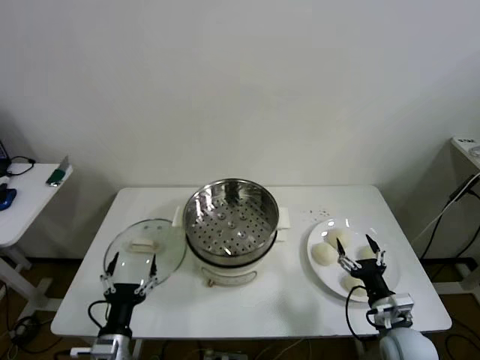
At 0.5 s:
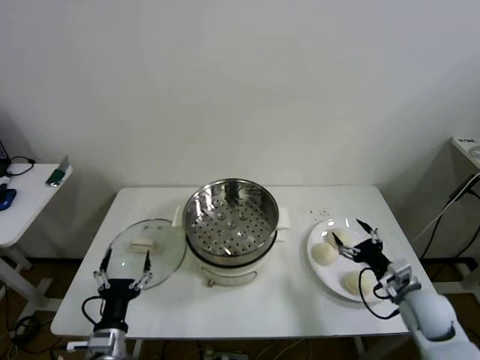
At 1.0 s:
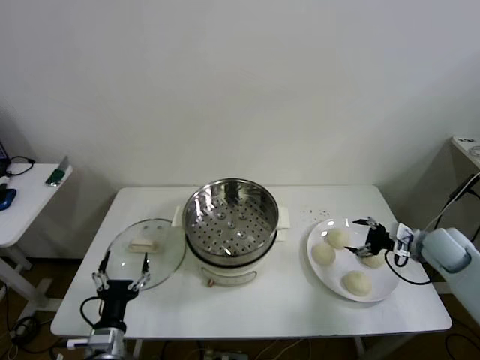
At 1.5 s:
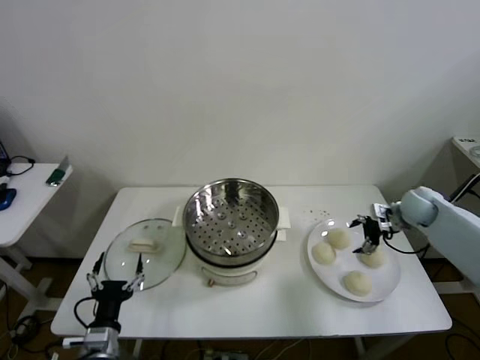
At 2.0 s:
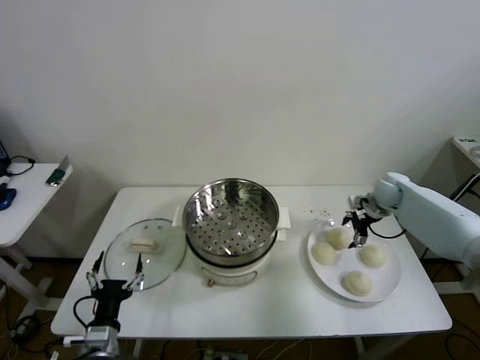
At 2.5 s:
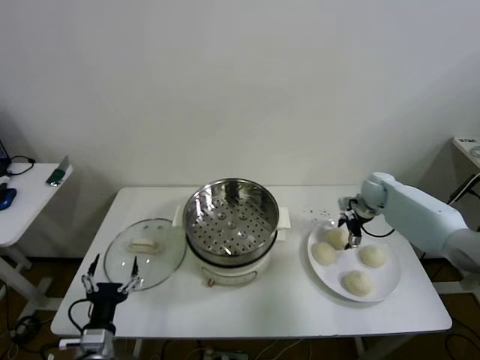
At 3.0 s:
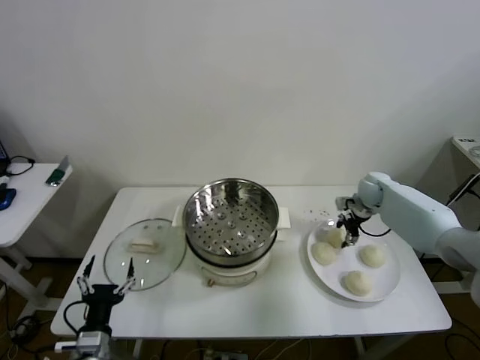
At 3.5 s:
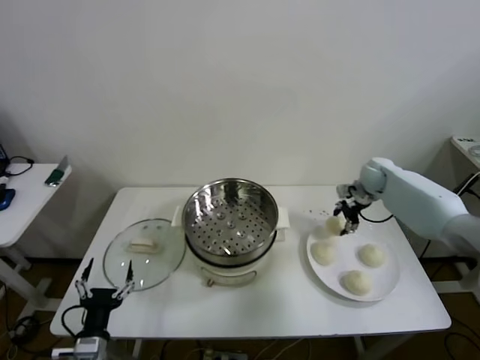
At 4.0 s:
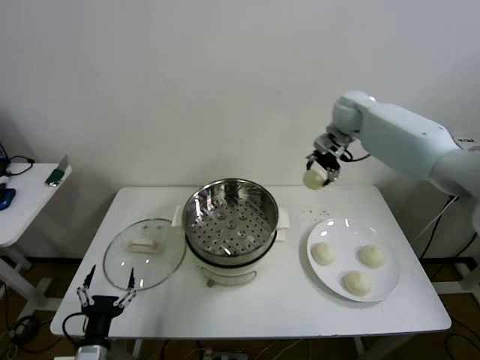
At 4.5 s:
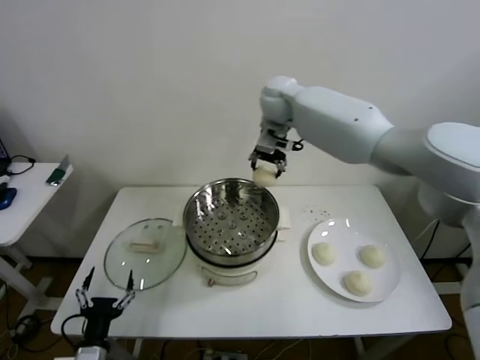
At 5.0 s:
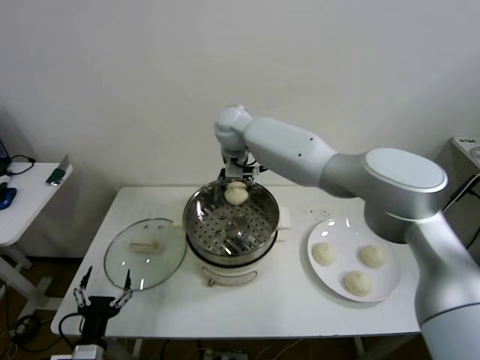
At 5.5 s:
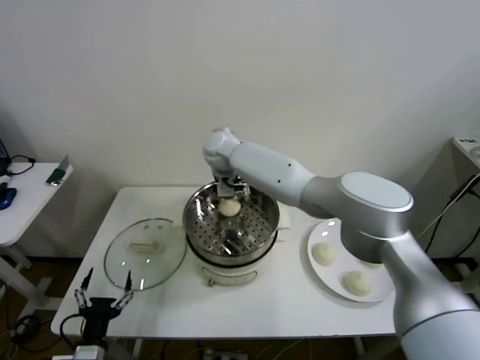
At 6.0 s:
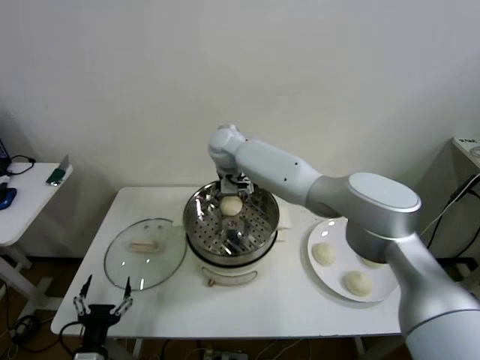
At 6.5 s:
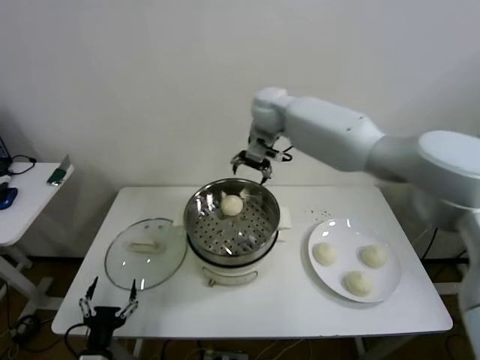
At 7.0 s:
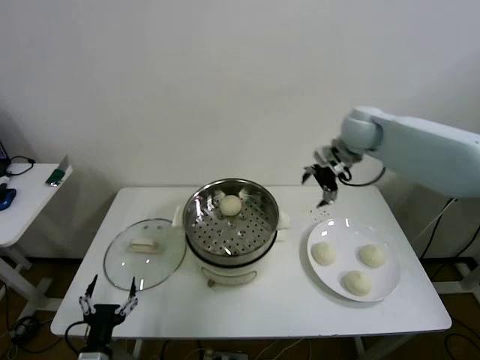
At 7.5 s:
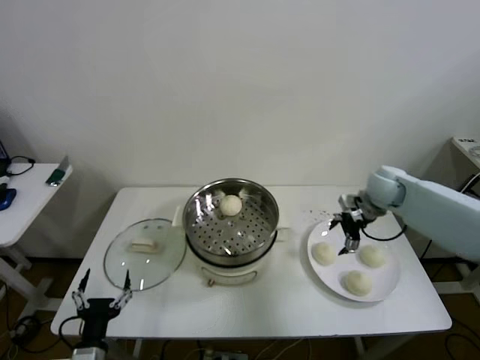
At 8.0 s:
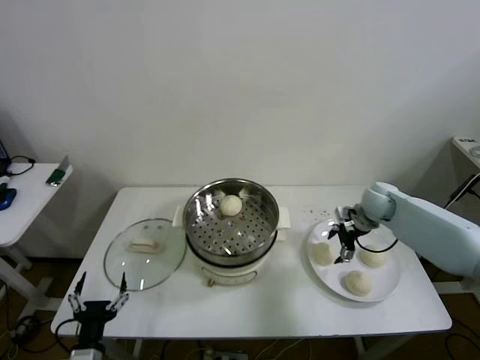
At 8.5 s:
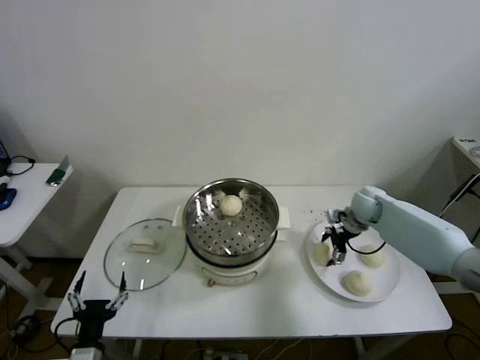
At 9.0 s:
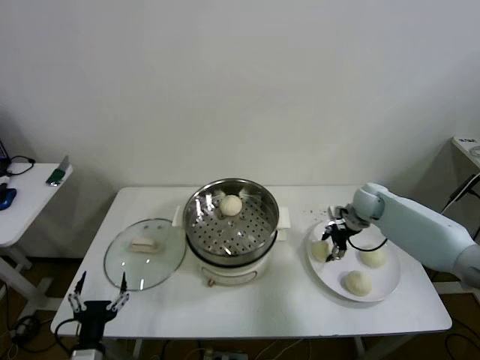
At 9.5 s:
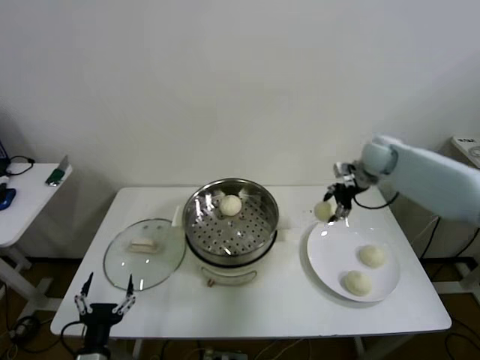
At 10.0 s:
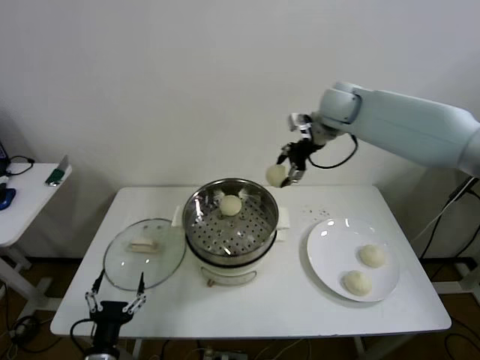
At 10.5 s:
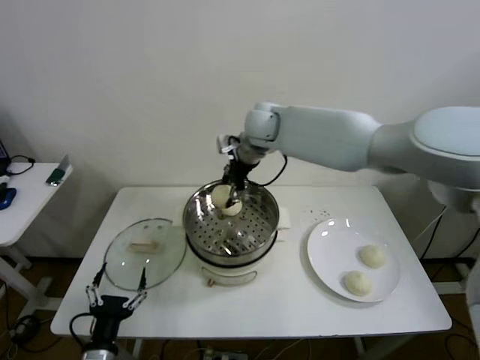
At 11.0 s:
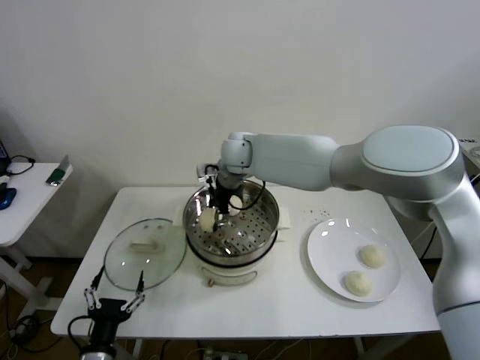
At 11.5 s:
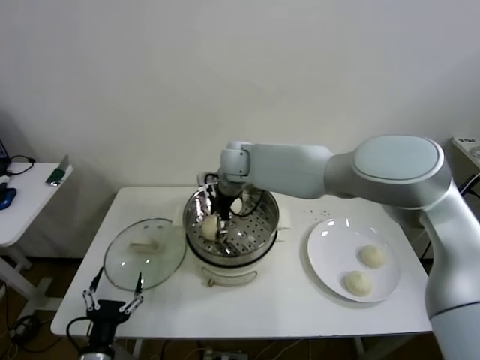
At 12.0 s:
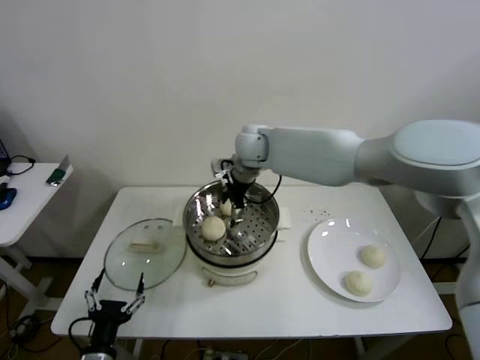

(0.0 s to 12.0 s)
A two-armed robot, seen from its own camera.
Step, 0.0 s - 3.0 s: Grasp the baozi in the plate with right gripper.
Step, 3.5 s - 6.0 s: Place the baozi on the steamer with right gripper.
Step, 6.5 s - 8.5 s: Grasp the baozi in the plate with right gripper.
Step, 9.0 s - 11.5 s: Place the baozi on the steamer with right gripper.
2.0 s - 4.0 s: The right gripper moves upward and to the left, approximately 30 cm, and closes up.
4.0 s - 6.0 s: The right gripper moves to the left, some 25 cm, and opens.
6.0 s - 8.0 s: The right gripper goes about 40 cm to the right.
8.0 s - 10.0 s: The right gripper heads upward and to the left, covering roughly 30 cm, and closes its fingers.
10.0 s - 12.0 s: The right gripper is displaced to the left and downward by some 15 cm, and opens.

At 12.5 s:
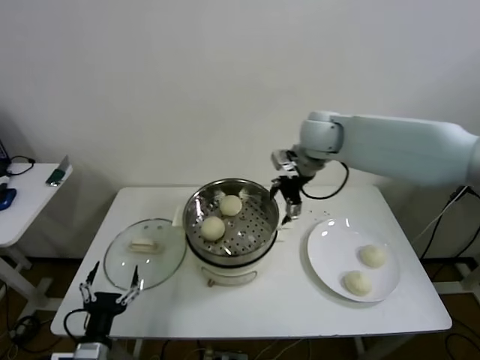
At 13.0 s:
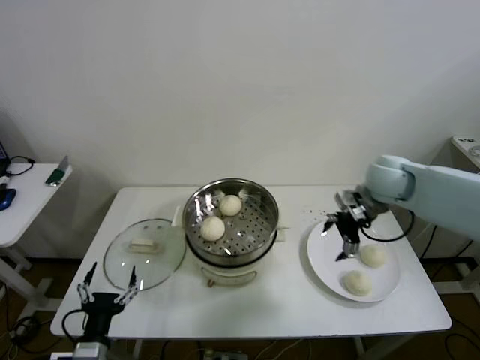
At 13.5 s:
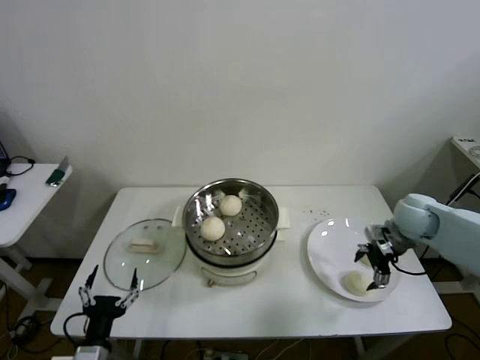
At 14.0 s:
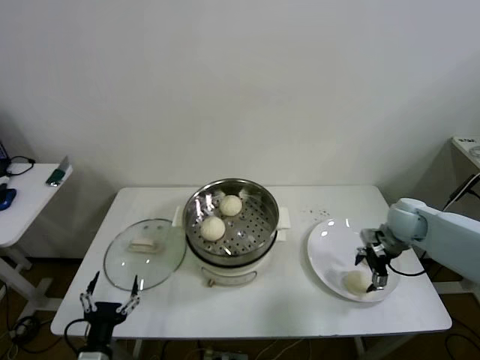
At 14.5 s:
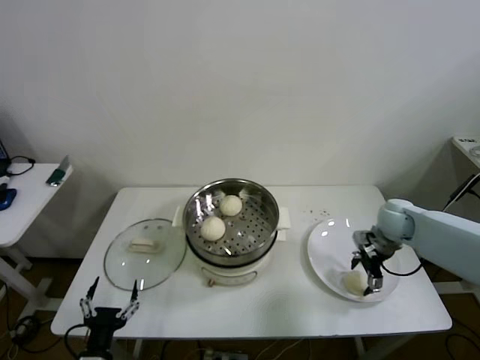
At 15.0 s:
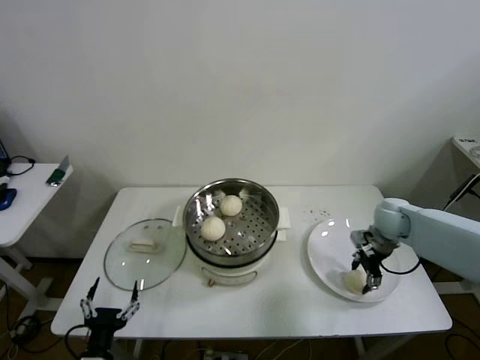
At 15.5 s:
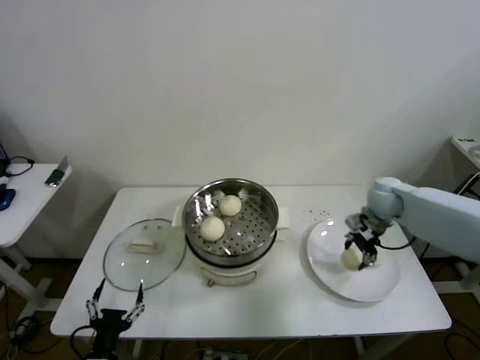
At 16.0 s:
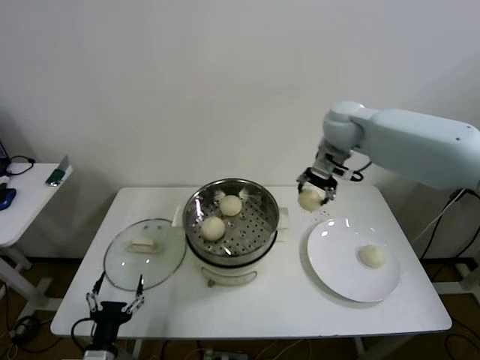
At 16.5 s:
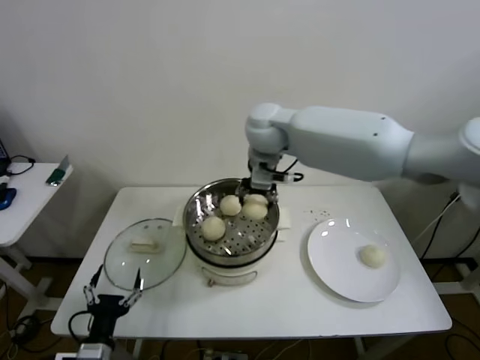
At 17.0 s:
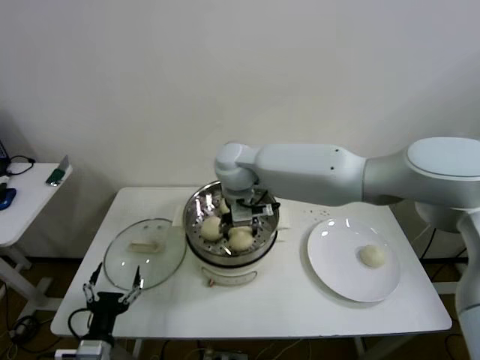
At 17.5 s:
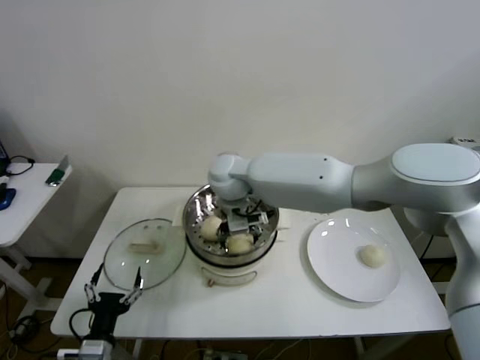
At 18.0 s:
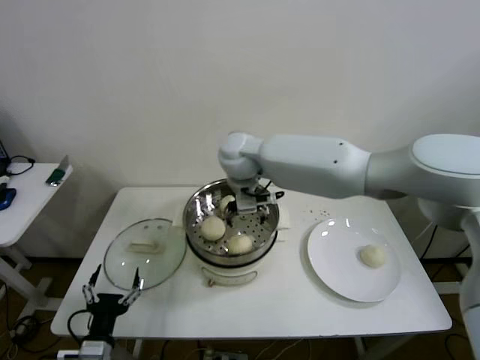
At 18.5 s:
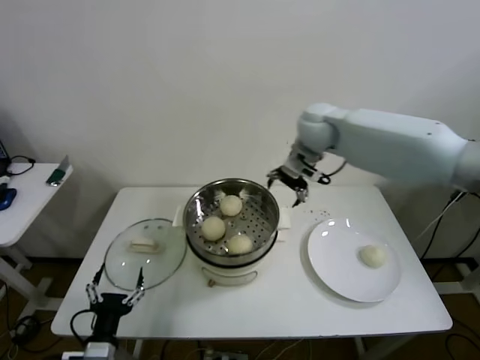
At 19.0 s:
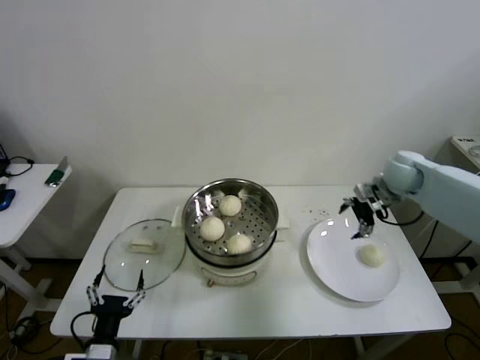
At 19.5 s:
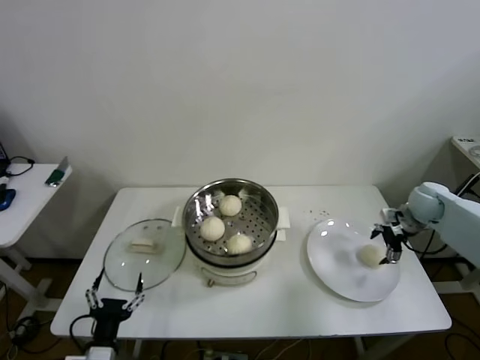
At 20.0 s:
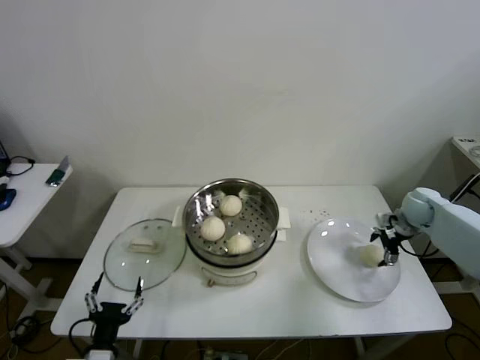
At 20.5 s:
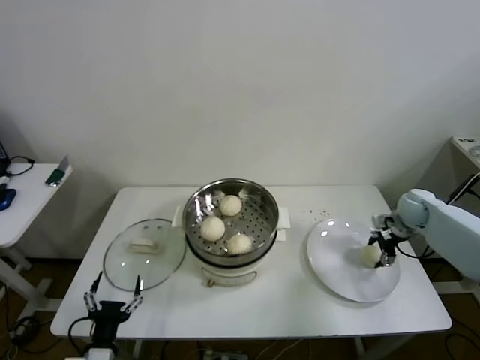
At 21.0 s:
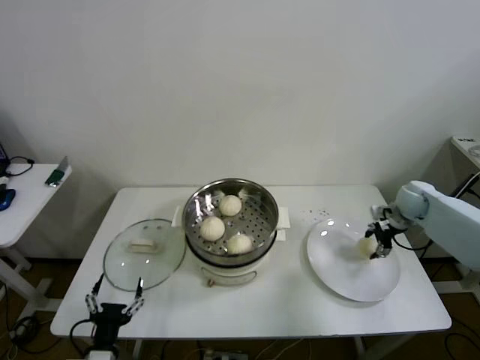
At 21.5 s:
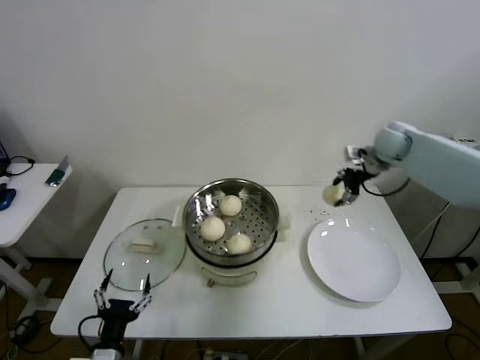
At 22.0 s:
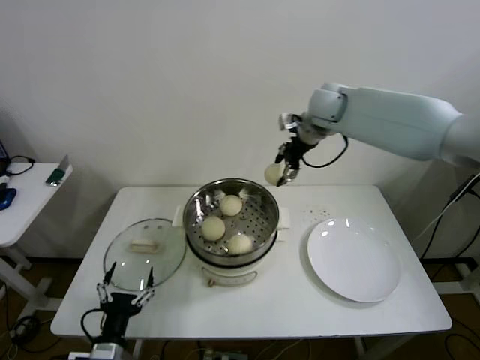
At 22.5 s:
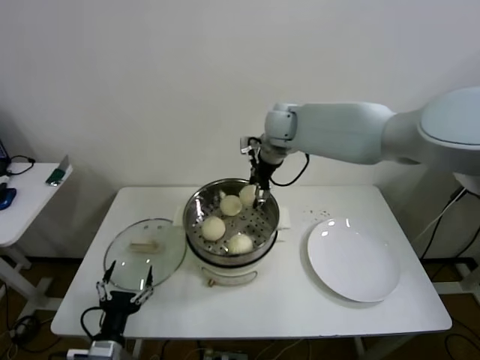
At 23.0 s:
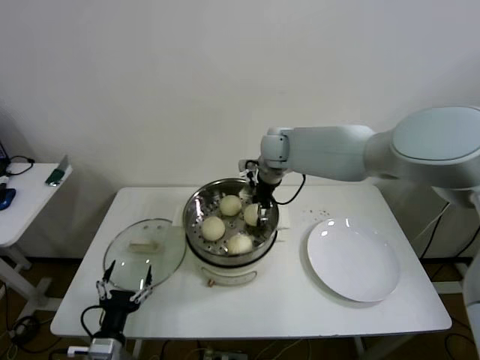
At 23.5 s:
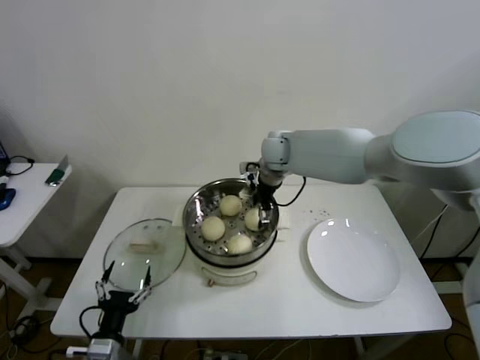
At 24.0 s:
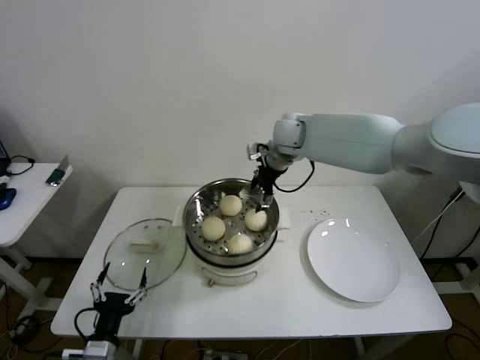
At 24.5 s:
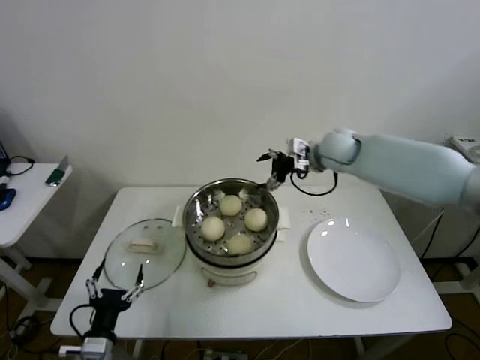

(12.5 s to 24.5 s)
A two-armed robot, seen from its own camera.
Step, 12.5 s - 15.0 s: Grasp the baozi in the plate with right gripper.
Step, 15.5 s - 17.5 s: Place the baozi on the steamer with right gripper.
Step, 18.0 s - 20.5 s: Grasp the baozi in the plate with right gripper.
Step, 21.0 s - 24.0 s: Place the baozi on the steamer with right gripper.
12.5 s - 14.5 s: The right gripper heads downward and to the right, covering roughly 30 cm.
14.5 s - 16.5 s: The right gripper heads to the left and upward, covering some 40 cm, and closes up.
16.5 s - 18.5 s: The right gripper is displaced to the right by approximately 15 cm, and opens its fingers.
18.5 s - 20.5 s: The right gripper shifts approximately 35 cm to the right and downward, and closes its fingers.
20.5 s - 22.5 s: The right gripper is displaced to the left and upward by approximately 40 cm.
22.5 s - 24.5 s: The right gripper shifts about 15 cm to the right, and opens its fingers.

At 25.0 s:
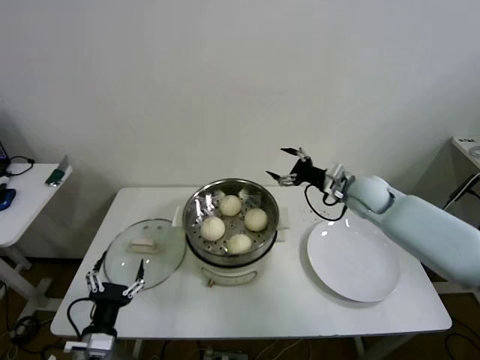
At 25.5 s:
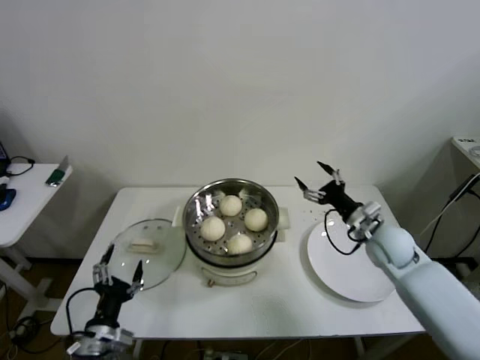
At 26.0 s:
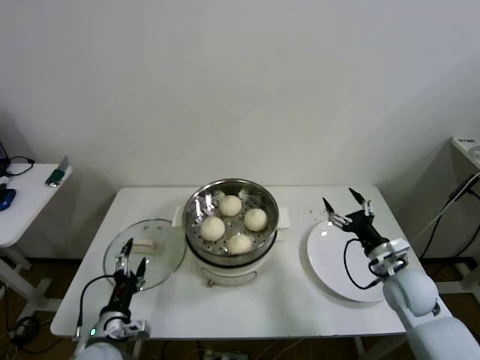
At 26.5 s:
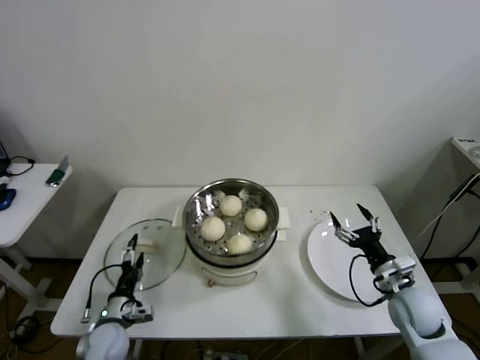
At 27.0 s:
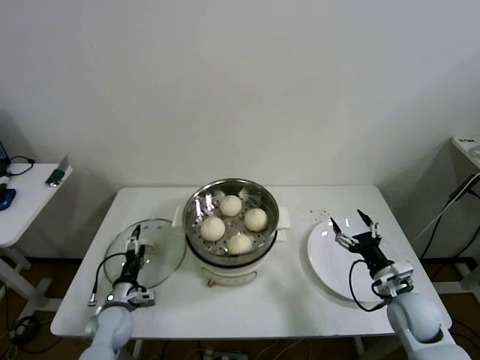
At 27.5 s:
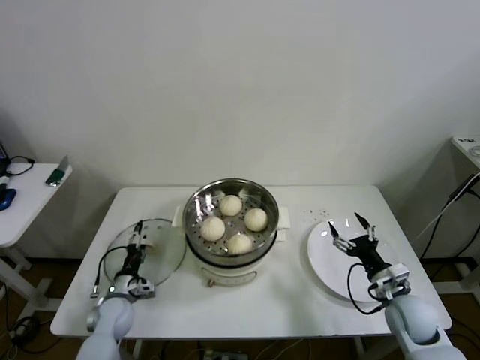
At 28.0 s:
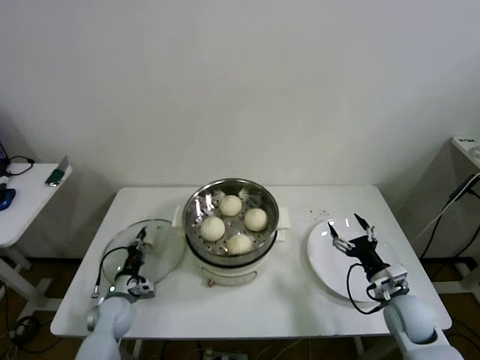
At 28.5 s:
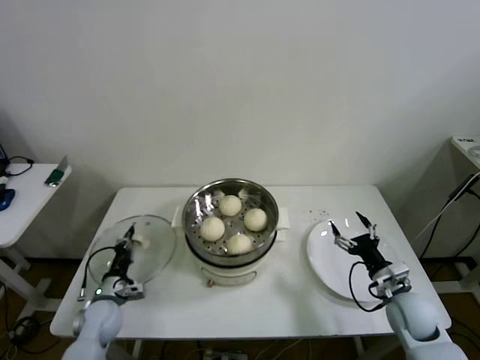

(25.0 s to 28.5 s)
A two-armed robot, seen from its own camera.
Step, 25.0 s - 28.0 s: Grasp the pot lid with left gripper.
25.0 s - 27.0 s: The left gripper heads forward and downward, covering some 20 cm. The right gripper shifts about 25 cm backward and downward.
27.0 s - 28.5 s: The left gripper closes its fingers.
